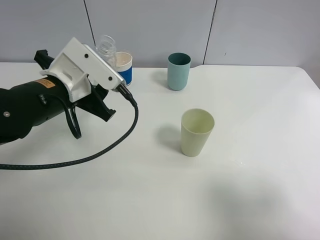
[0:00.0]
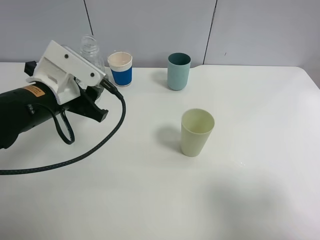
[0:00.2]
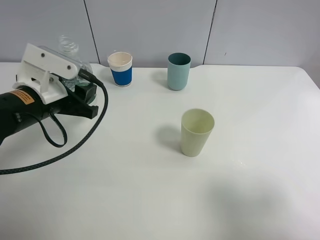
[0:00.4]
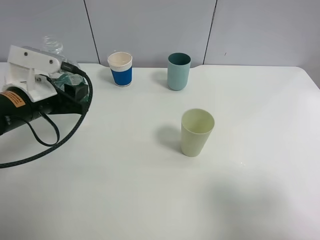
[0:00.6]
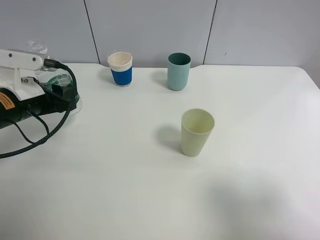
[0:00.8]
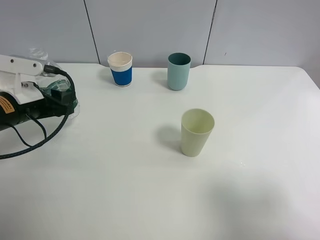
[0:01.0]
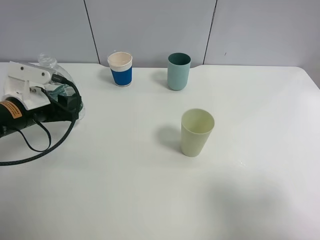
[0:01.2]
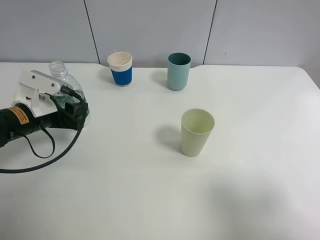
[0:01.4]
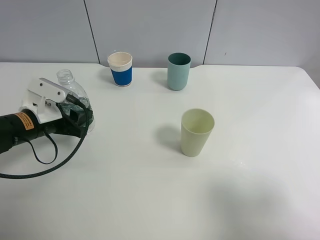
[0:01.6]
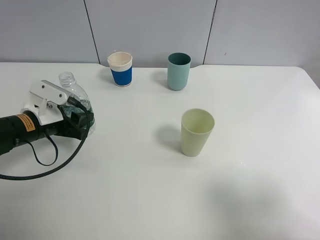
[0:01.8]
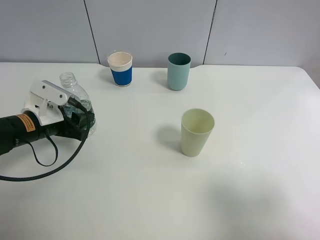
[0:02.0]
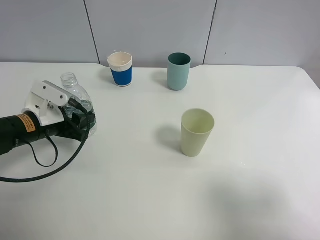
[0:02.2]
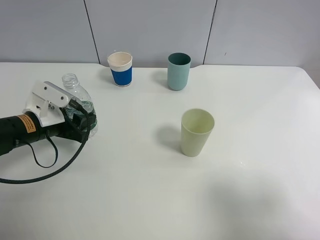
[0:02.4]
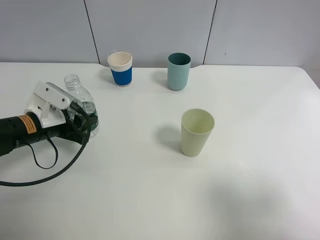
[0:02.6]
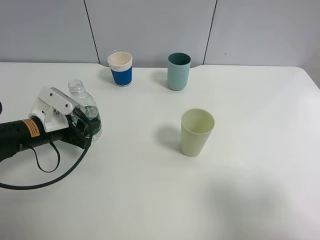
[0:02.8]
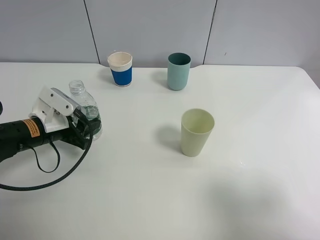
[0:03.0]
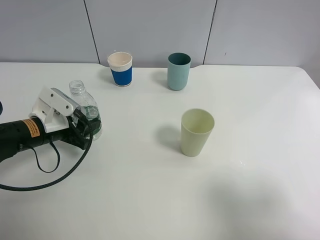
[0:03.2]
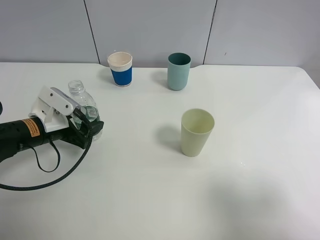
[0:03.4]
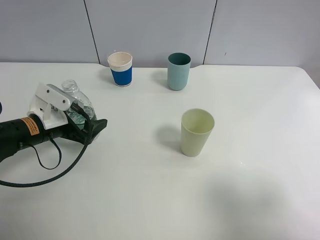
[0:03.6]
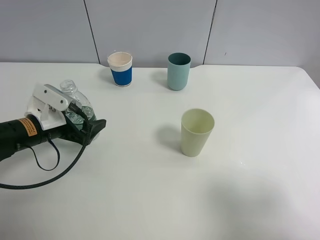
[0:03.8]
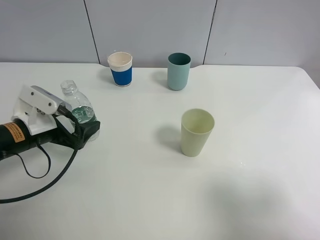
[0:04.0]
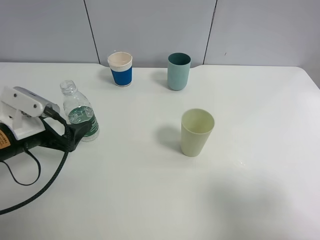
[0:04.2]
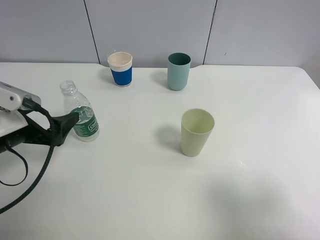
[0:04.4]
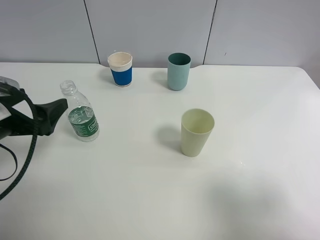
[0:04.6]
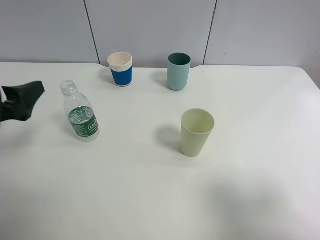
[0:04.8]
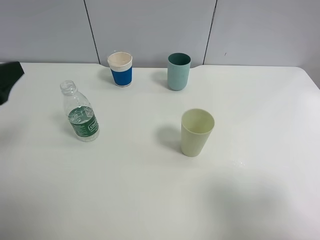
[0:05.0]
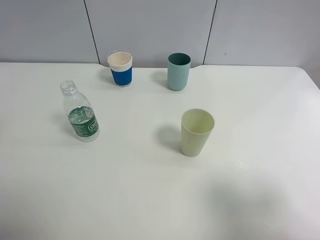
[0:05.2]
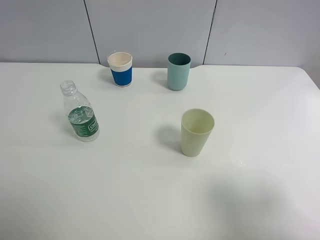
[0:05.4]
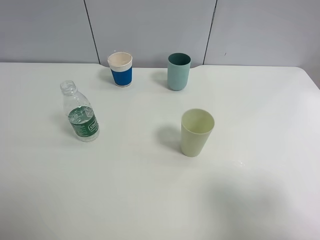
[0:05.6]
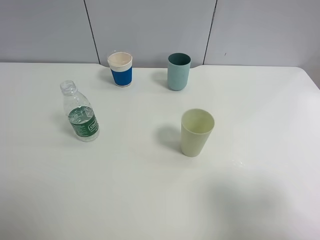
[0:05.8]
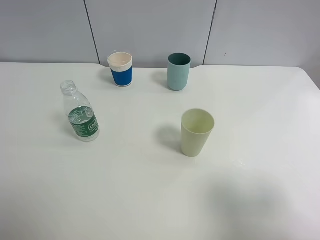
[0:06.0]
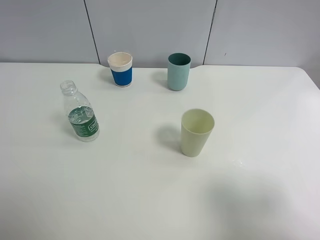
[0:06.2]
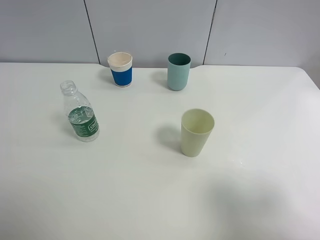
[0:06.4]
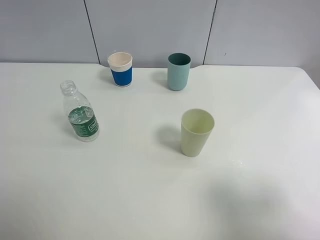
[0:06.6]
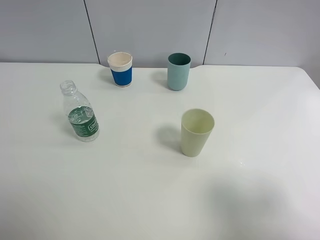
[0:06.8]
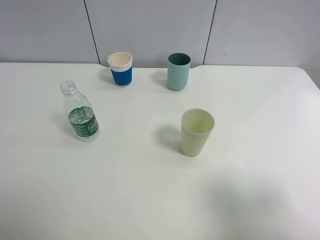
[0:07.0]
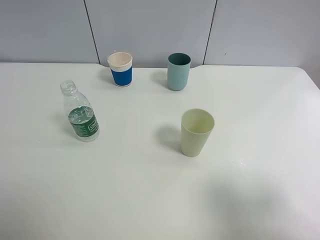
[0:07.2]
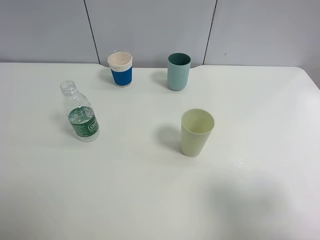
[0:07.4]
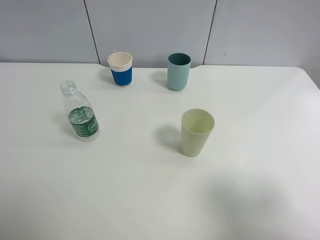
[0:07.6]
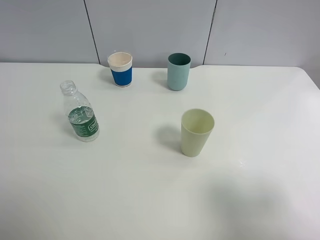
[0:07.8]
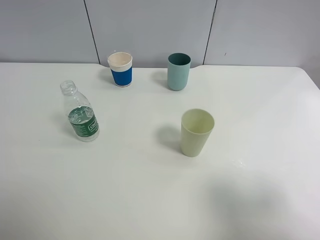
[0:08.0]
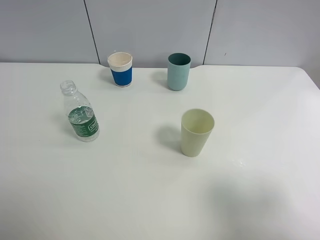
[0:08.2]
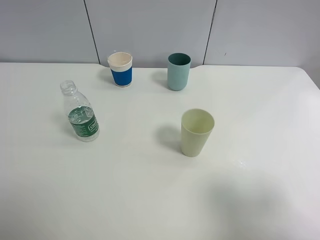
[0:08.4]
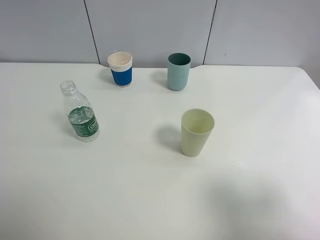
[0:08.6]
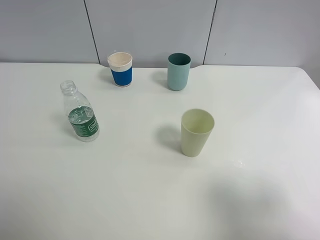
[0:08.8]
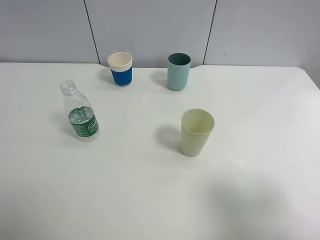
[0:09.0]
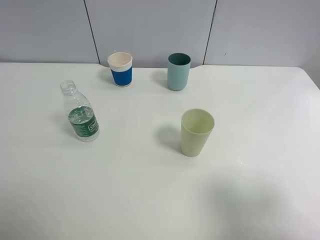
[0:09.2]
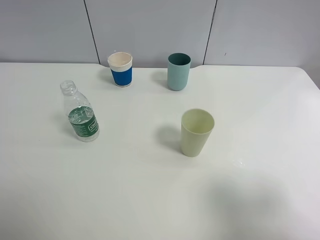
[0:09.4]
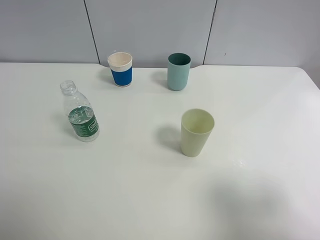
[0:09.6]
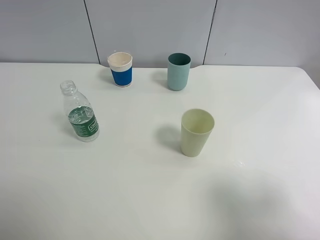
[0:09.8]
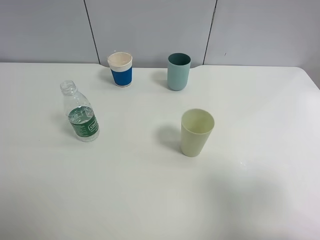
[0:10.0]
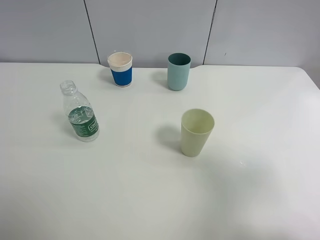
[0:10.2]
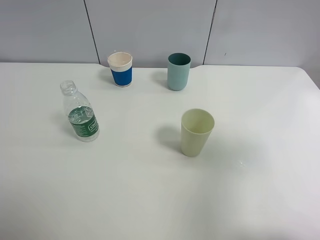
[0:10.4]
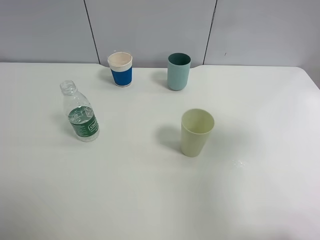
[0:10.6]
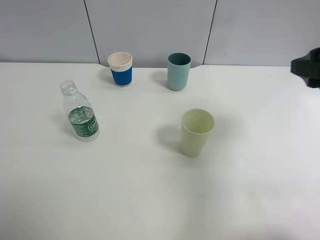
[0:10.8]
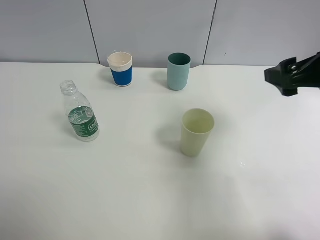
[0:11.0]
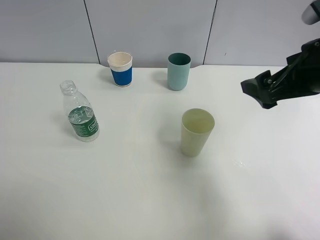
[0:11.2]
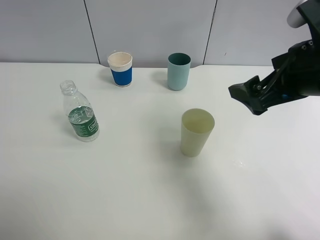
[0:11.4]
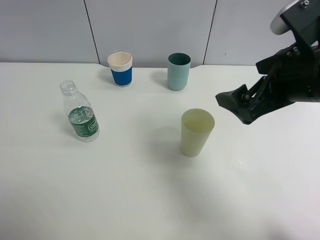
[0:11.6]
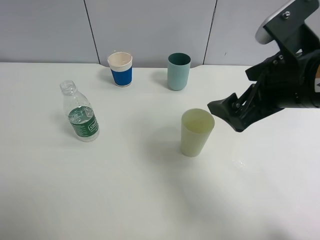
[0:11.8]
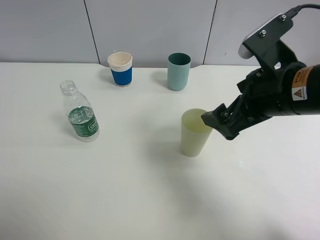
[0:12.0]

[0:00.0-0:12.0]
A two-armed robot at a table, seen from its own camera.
Task of the whole recording: use a clamp to hold the bottle of the drink, pour the beverage into a random cup, then clamp the cup containing the drink and pour the drink into another random cup.
Step, 0:00.0 to 0:03.6: Place the water bottle on the table with left gripper.
0:00.0 to 0:01.6: The left gripper is displaced downward and to the left by about 10 cm.
0:01.6 to 0:03.0: The grippers move only a little.
0:03.0 to 0:04.4: The left gripper travels backward and upward by approximately 10 cm, and opens.
0:04.4 to 0:06.0: The left gripper is displaced backward and upward by approximately 35 cm.
0:07.6 to 0:09.0: Both grippers stay about where they are.
0:09.0 to 0:10.4: The right gripper moves forward, roughly 10 cm.
0:10.4 to 0:12.0: The right gripper is displaced to the left, downward and forward by approximately 20 cm.

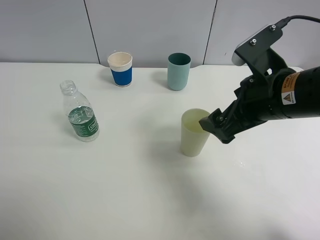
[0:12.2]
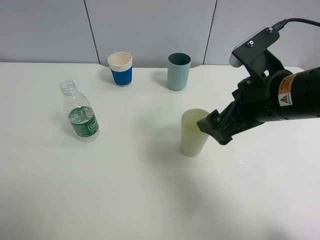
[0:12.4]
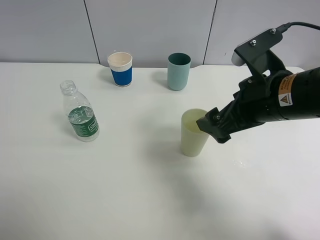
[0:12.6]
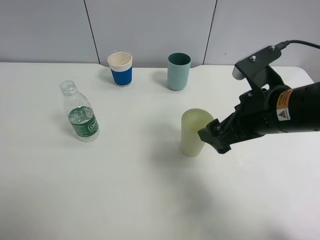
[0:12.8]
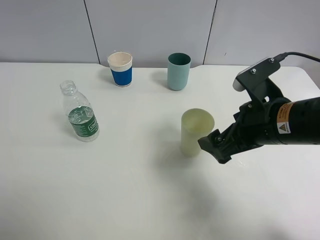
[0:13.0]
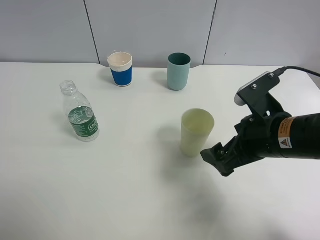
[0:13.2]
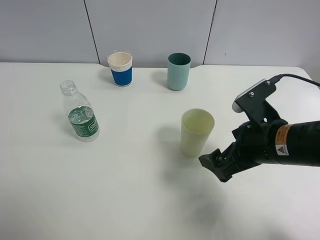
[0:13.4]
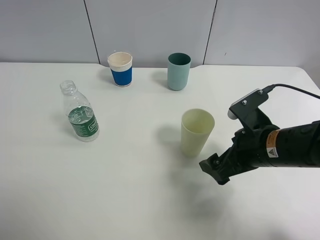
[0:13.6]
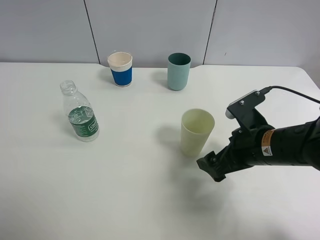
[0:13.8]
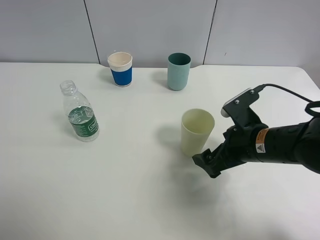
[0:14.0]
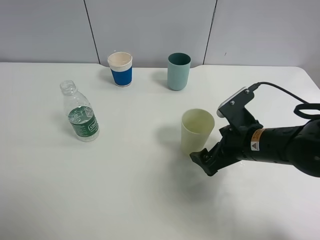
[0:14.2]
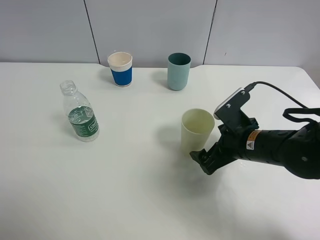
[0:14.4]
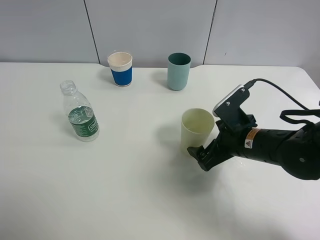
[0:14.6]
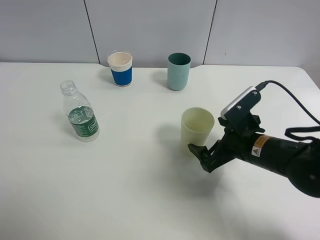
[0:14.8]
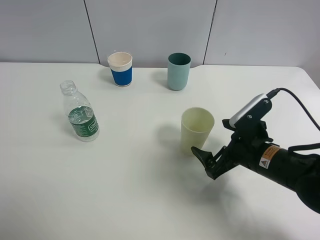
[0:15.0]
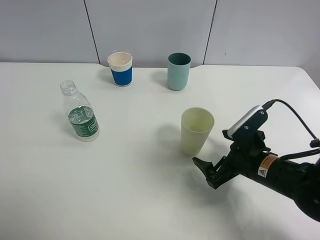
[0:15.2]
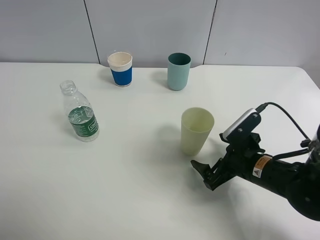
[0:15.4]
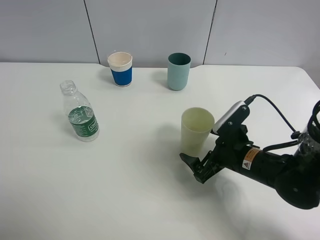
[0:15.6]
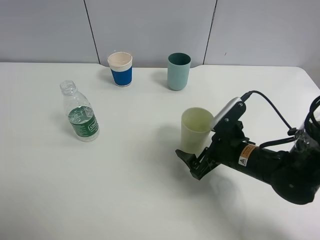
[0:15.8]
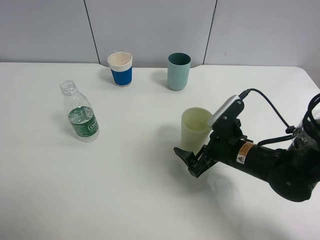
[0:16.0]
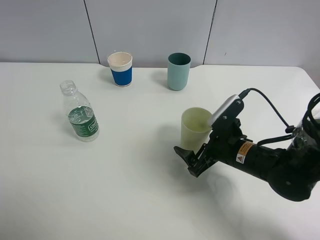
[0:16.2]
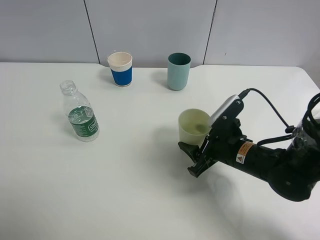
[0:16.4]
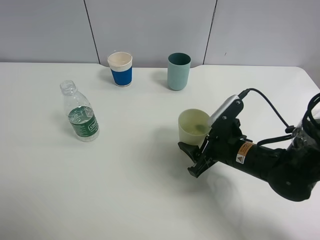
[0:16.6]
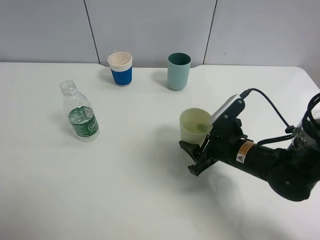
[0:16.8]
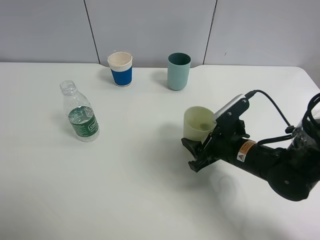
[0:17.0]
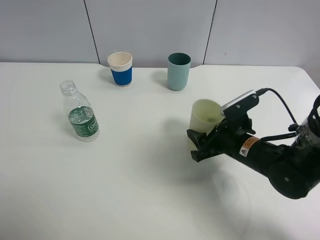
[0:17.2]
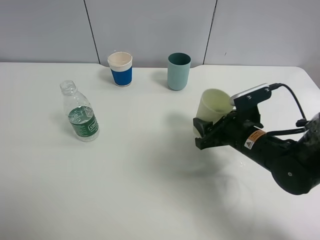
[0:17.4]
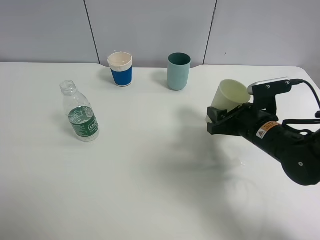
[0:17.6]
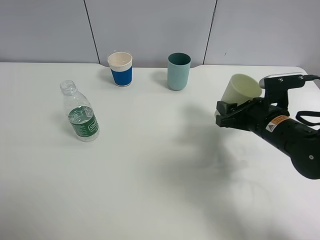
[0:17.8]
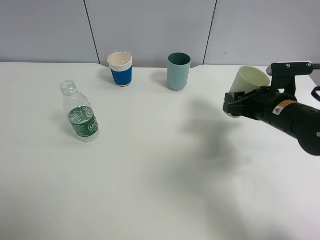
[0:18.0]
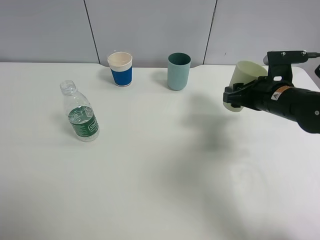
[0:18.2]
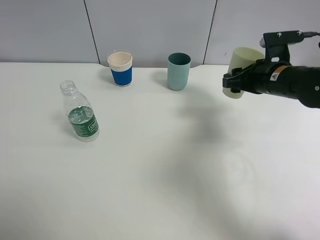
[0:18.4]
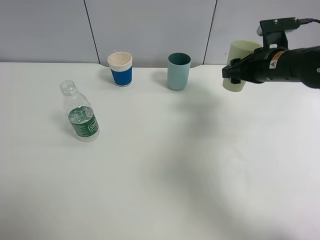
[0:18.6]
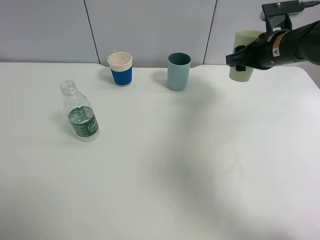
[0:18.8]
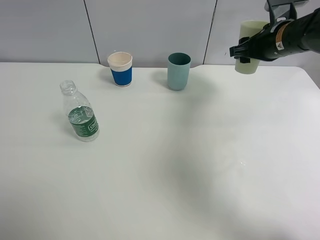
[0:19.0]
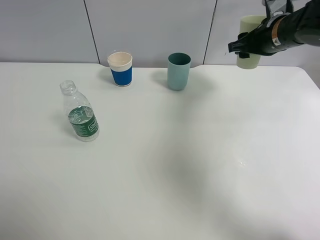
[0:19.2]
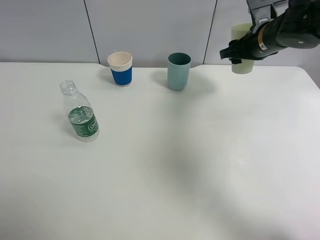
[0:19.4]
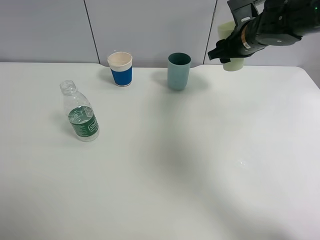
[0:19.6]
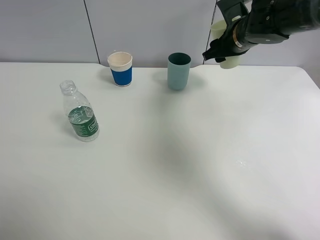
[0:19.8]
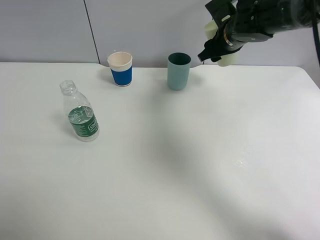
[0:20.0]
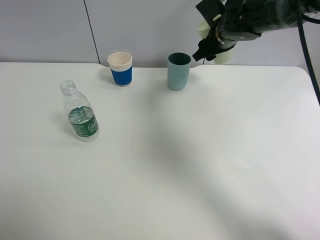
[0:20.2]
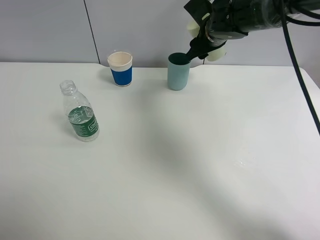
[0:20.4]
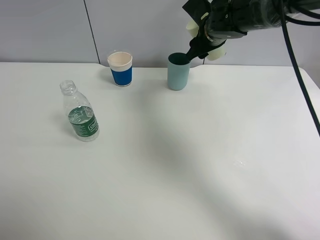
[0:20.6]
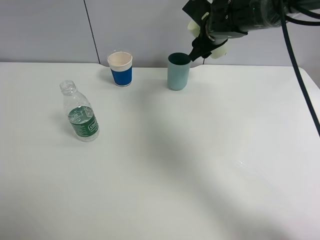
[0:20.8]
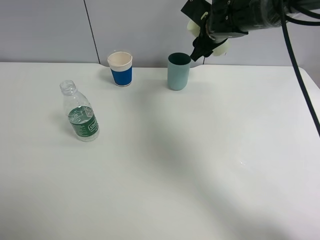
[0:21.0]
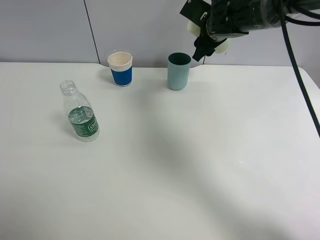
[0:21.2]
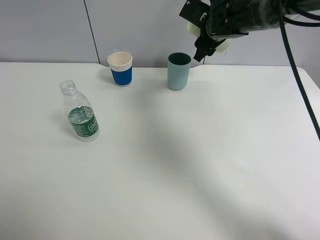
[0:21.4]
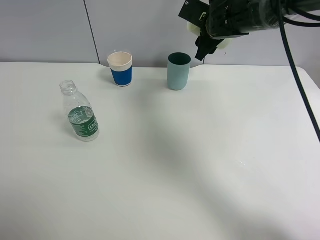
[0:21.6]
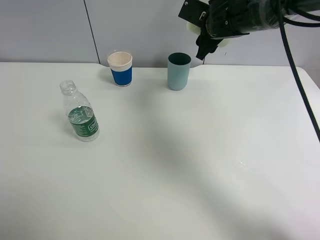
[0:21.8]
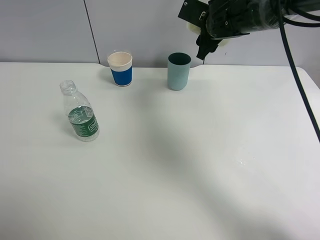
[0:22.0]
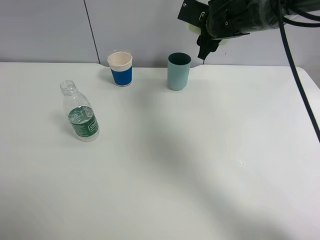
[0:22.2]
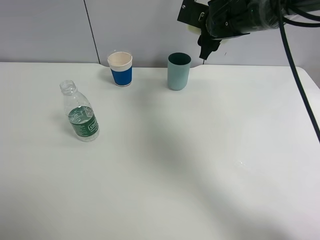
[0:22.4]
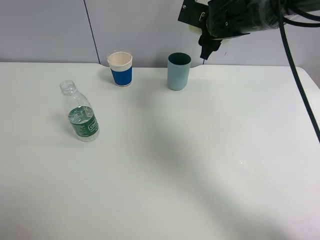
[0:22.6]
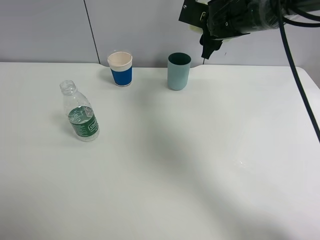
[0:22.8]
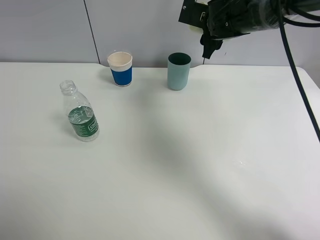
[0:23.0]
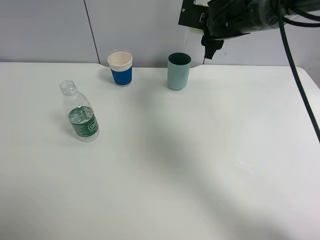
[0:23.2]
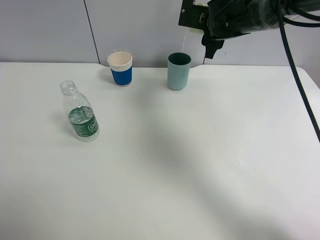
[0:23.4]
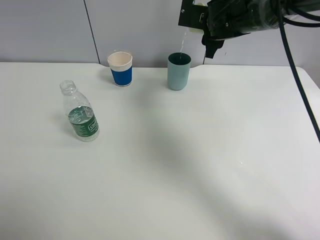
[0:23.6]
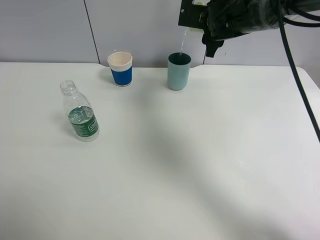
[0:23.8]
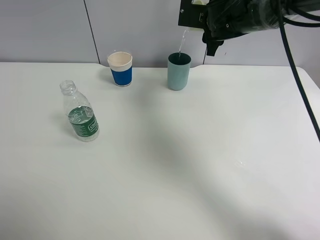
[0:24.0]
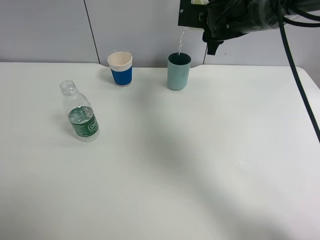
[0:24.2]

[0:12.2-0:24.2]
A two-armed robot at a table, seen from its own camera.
Task of the whole recording: use a clamp to hold the bottle of the drink, pour the beverage into a random cup, then clamp the cup containing the drink and pour the drink into another random cup.
Step, 0:12.2 to 0:17.2: Pick up the paper cup with right gripper.
0:12.2 to 0:13.8: The right gripper goes some 10 cm downward.
0:13.8 to 0:15.2: The right gripper travels downward by roughly 5 cm.
0:15.2 to 0:16.6: The right gripper closes up.
0:16.6 to 0:18.2: The right gripper shifts roughly 15 cm forward, upward and to the right.
0:18.2 to 0:19.8: The right gripper is displaced forward, upward and to the left by approximately 15 cm.
0:19.8 to 0:21.2: The right gripper moves some 5 cm.
0:21.2 to 0:22.6: The grippers move only a little.
